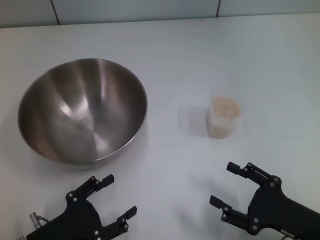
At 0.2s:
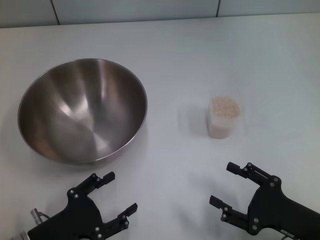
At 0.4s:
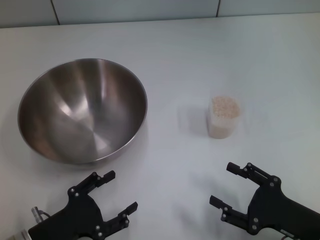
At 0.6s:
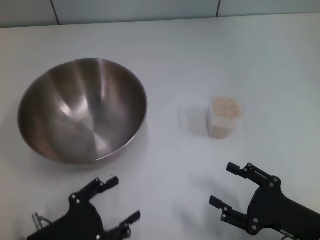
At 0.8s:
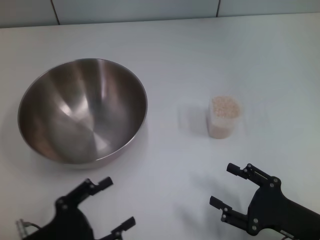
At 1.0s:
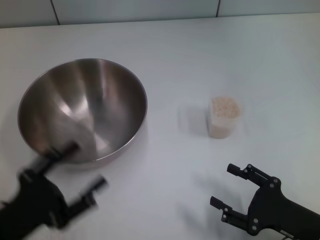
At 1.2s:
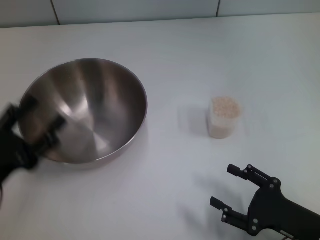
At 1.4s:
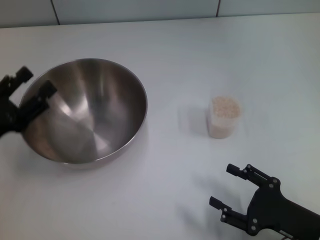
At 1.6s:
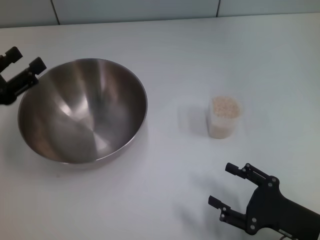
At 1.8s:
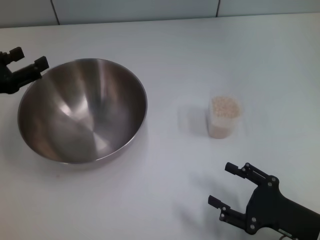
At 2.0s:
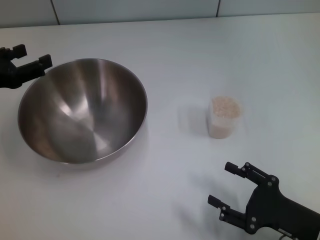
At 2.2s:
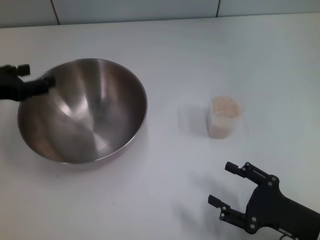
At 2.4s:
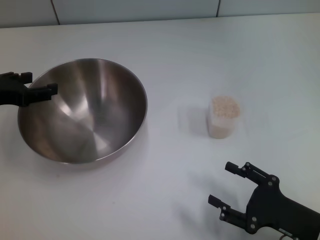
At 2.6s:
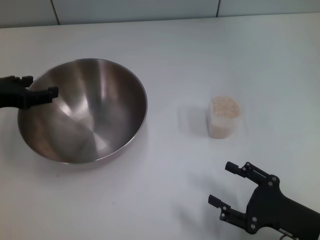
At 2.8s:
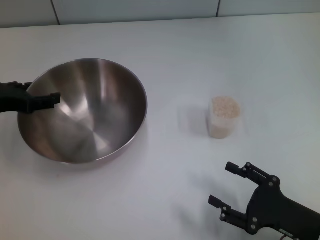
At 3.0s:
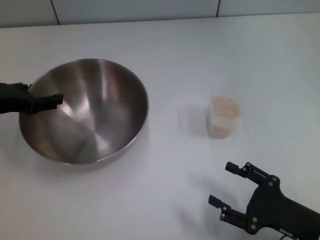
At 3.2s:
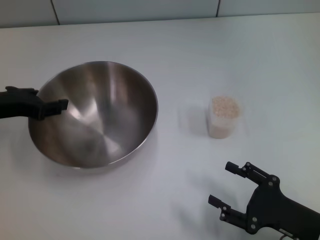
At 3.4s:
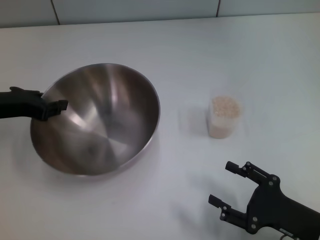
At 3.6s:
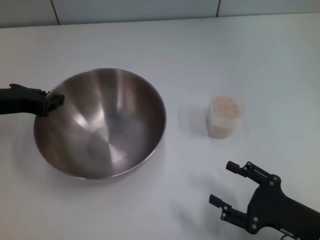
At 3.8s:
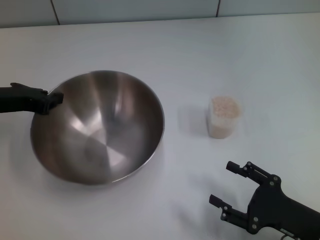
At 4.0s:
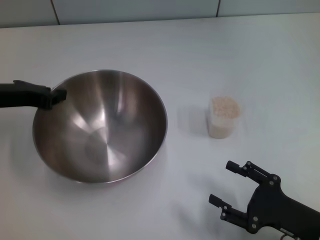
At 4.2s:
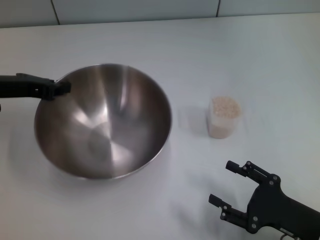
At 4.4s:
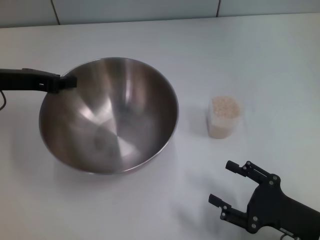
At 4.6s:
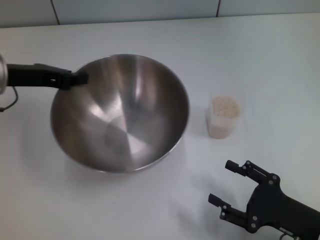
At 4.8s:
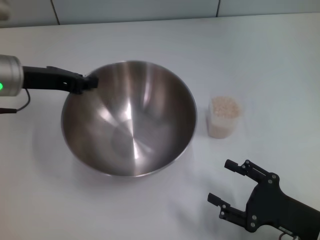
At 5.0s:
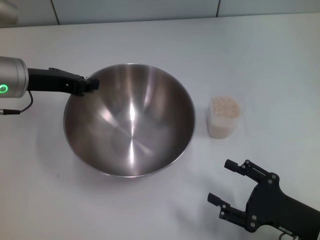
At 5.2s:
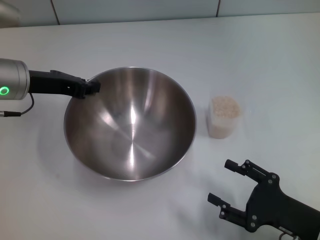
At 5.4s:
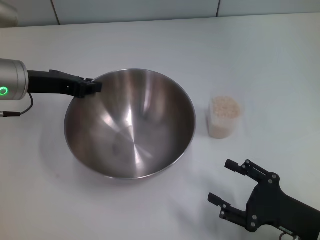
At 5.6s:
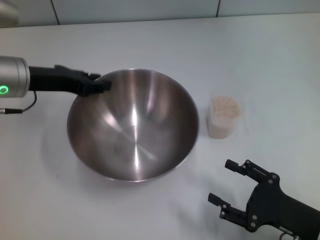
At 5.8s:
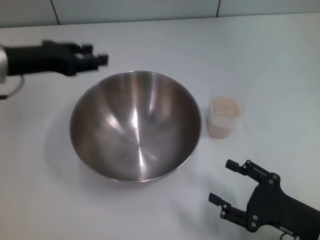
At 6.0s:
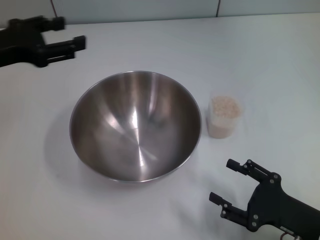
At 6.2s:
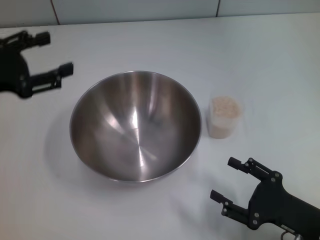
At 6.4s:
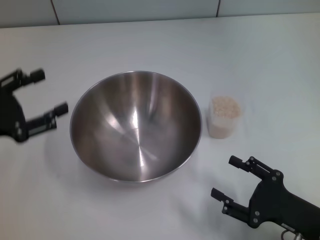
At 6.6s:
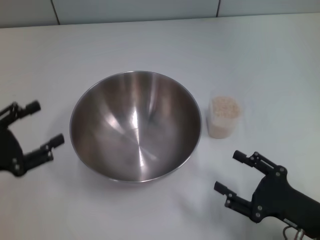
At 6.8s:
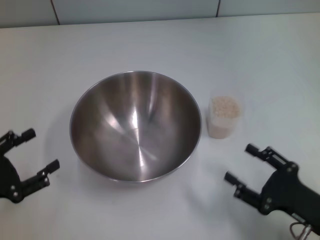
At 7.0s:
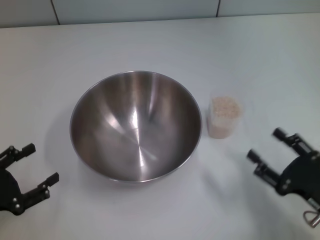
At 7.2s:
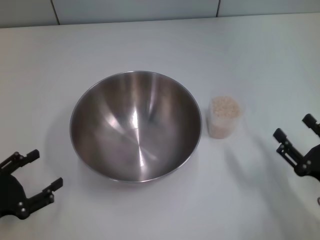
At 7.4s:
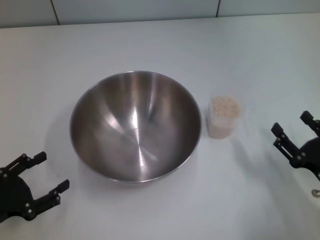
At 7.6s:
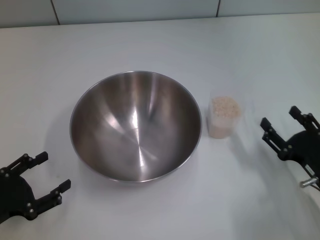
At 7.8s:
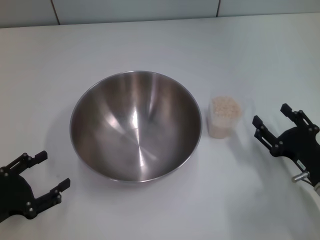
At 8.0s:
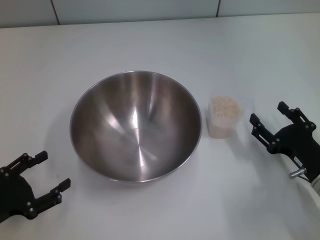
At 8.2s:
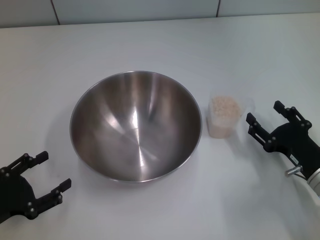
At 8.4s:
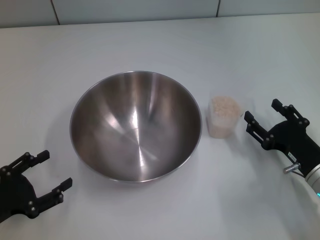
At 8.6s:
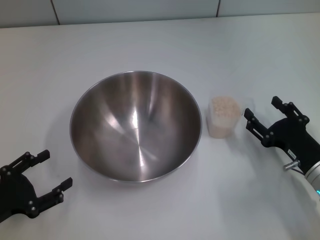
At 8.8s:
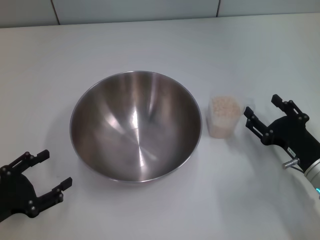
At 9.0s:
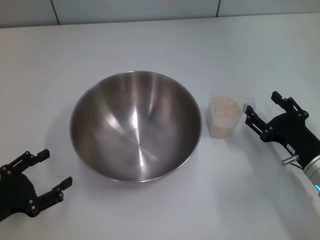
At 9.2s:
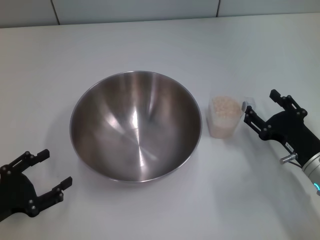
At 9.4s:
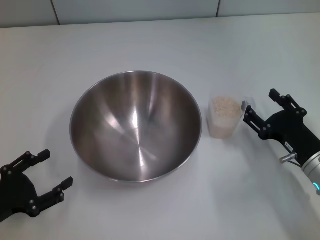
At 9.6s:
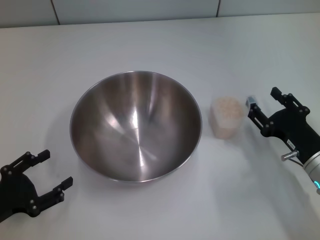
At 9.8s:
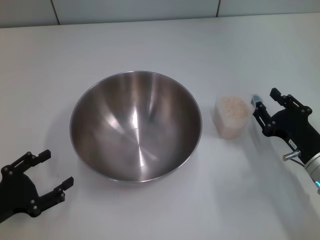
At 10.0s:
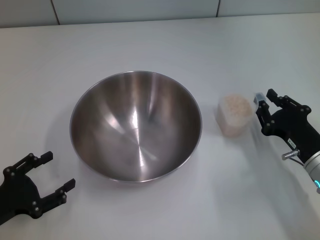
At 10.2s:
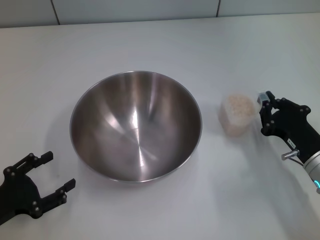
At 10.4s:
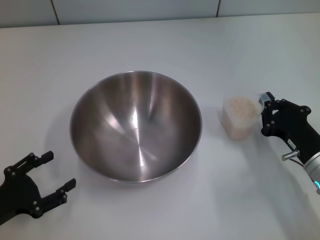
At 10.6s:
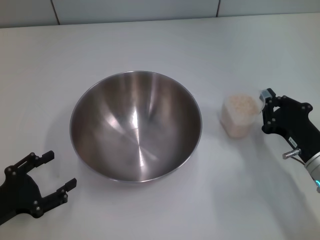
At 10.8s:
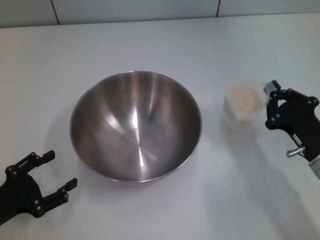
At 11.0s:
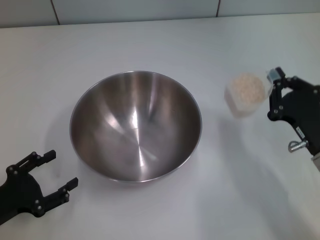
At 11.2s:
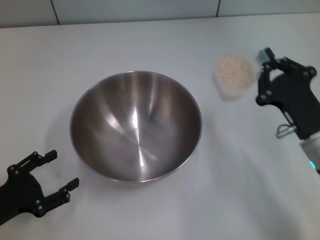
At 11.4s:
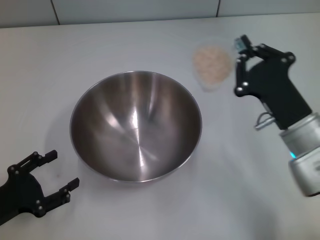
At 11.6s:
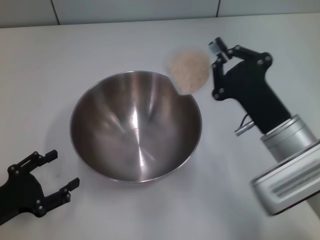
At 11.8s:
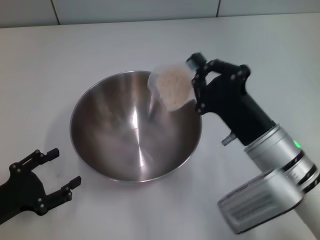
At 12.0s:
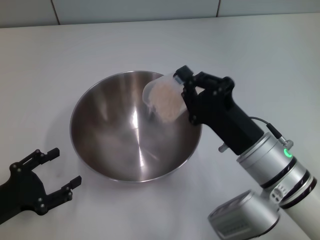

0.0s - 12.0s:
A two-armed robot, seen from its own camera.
Task of the whole recording: Place the bowl in the middle of the table with one hand and pour the rice from the grain cup into it with the other hand.
Step, 0.0s - 4.0s: Pick up the bowl with the left gripper.
Step, 4.2s - 6.6s: Place the bowl in the center of view with the left gripper.
Step, 6.8s - 10.8s: Pick up the cup with rice in it with the right gripper.
0.0s - 1.6s: The left gripper shifts about 20 cm forward, upward and to the left.
1.6s - 3.0s: The left gripper heads forward, covering some 5 cm.
3.0s - 4.4s: The left gripper changes place by about 5 cm, and closes its fingers.
4.4s - 6.0s: The left gripper opens its fingers.
6.0s - 7.6s: The left gripper shifts approximately 25 cm downward and backward, while the right gripper changes place by some 5 cm.
7.6s - 9.0s: The grippers move only a little.
9.0s - 10.4s: The right gripper closes.
10.4s - 12.0s: The right gripper goes some 10 cm to the left and upward.

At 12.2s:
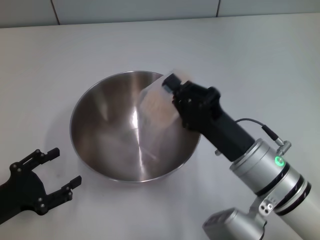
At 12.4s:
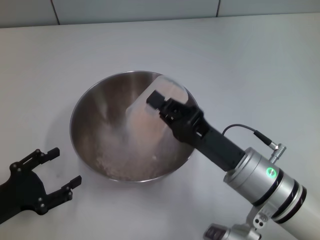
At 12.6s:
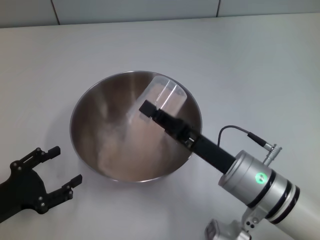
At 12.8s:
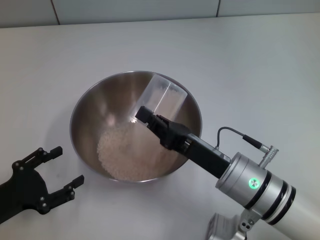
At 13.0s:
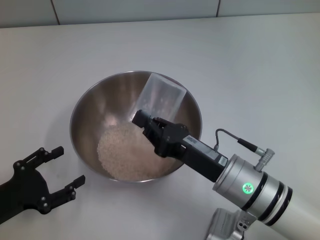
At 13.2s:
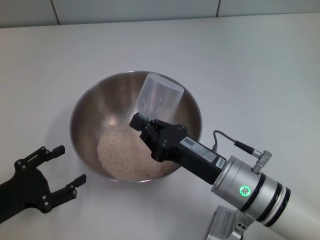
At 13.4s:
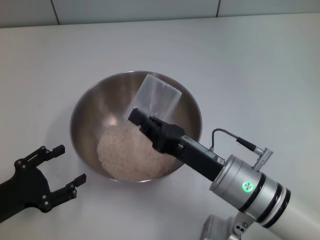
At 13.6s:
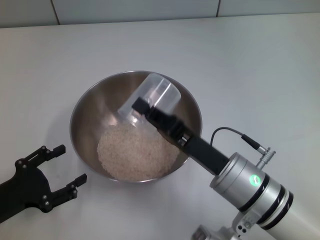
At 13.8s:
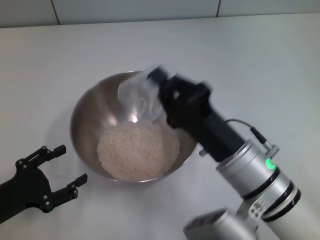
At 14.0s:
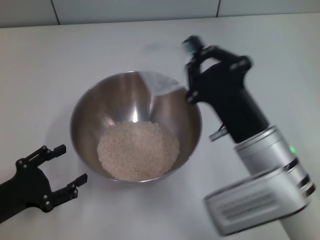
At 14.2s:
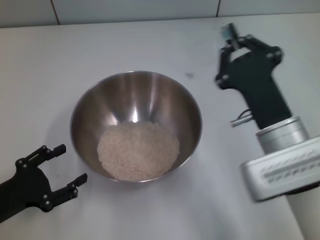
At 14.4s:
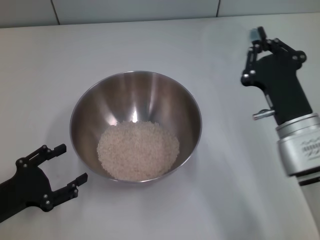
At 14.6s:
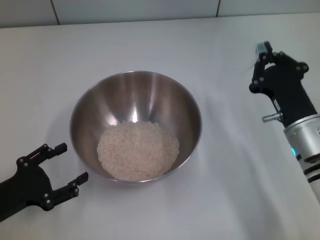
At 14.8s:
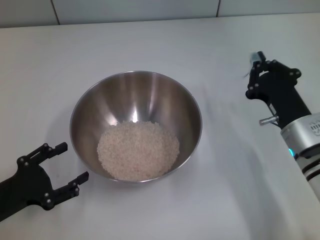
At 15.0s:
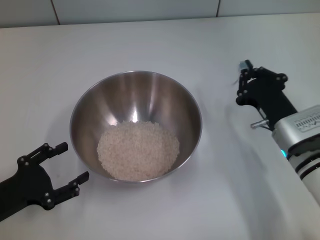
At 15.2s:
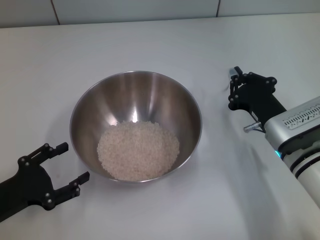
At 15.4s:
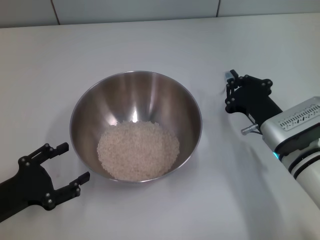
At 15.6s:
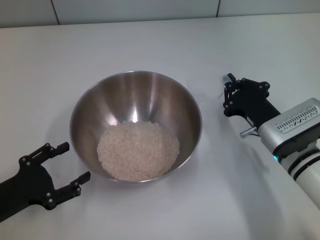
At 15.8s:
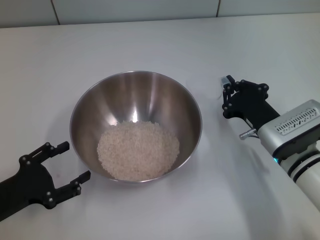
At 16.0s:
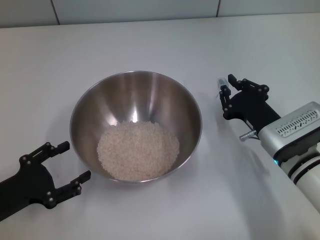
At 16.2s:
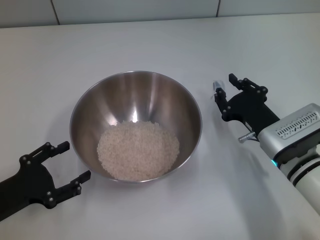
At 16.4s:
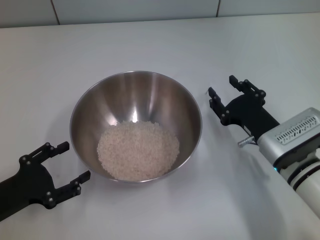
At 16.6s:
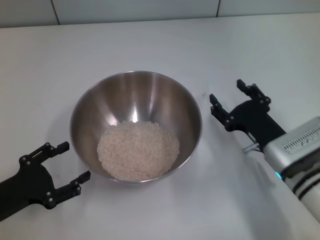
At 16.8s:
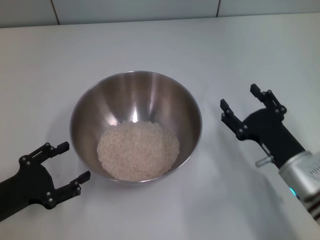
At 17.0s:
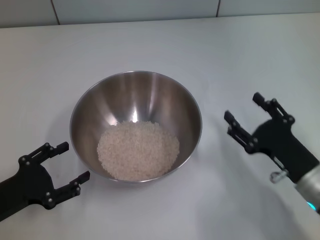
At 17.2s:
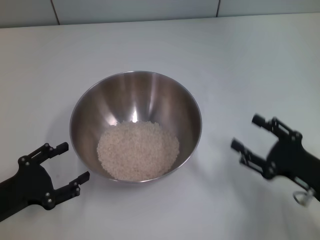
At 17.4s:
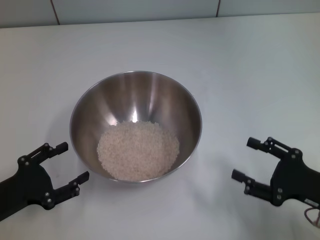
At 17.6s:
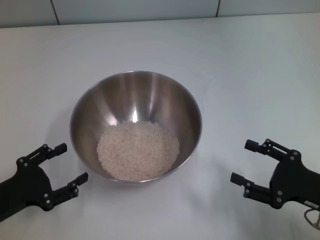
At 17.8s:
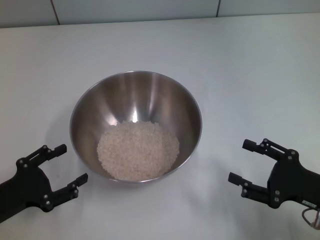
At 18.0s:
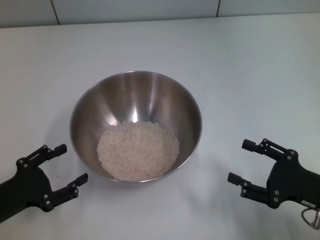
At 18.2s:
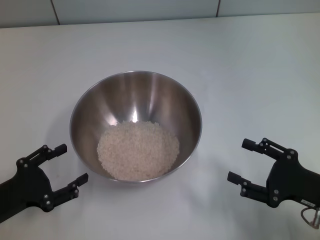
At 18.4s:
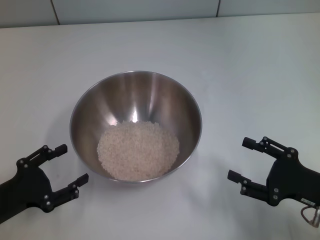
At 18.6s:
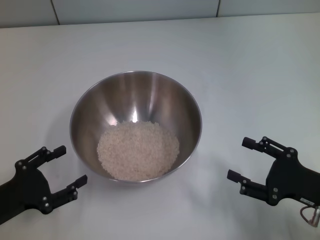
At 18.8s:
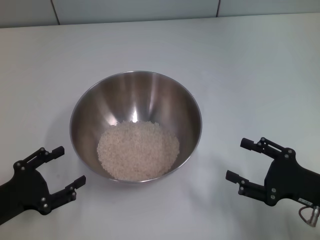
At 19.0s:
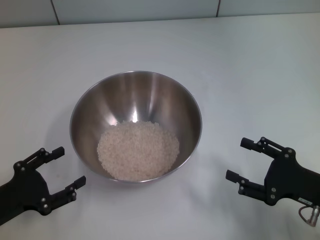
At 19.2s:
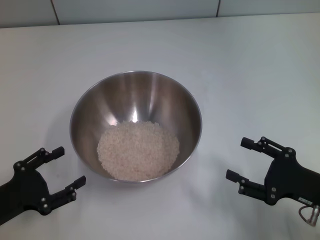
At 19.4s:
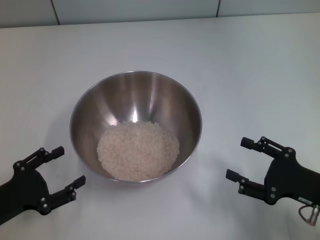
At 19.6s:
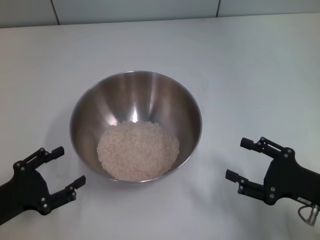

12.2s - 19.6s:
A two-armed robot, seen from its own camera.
Task of the whole recording: Place the bowl in the middle of the table with one hand and pour the rice from the grain cup into it with the other hand.
Step, 12.2s - 14.2s: Pour the rice from the cup into the bowl with the right gripper.
Step, 14.4s - 17.0s: Place the cup on the table with the right gripper.
13.6s - 15.2s: The right gripper heads to the right and forward, covering some 10 cm.
15.2s - 16.6s: The right gripper opens its fingers.
16.6s - 18.2s: The right gripper shifts about 10 cm to the right and backward.
18.2s - 19.6s: Both grippers stay put.

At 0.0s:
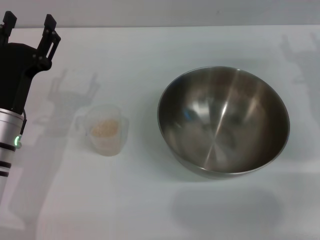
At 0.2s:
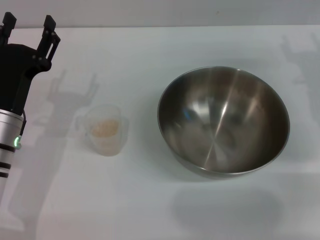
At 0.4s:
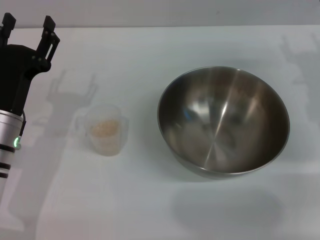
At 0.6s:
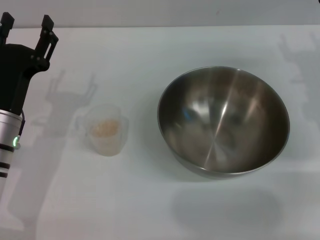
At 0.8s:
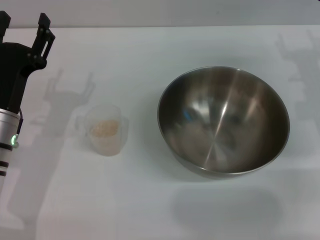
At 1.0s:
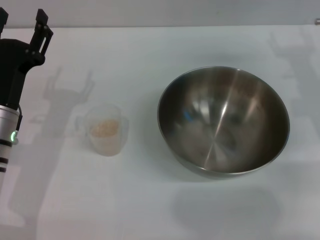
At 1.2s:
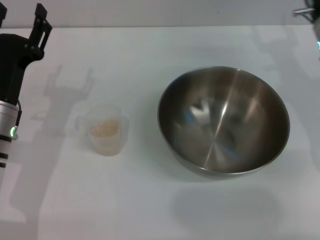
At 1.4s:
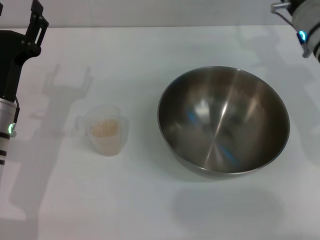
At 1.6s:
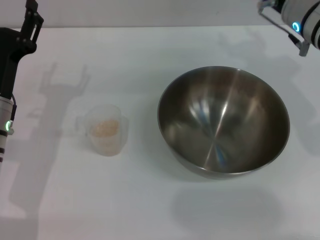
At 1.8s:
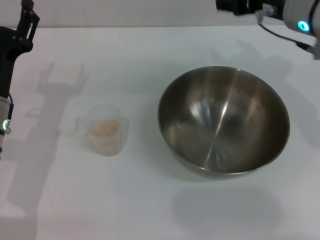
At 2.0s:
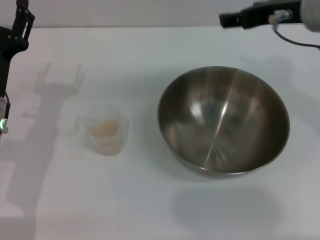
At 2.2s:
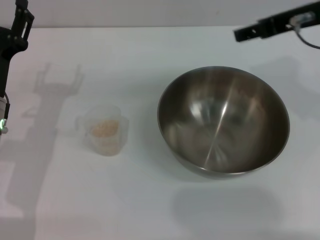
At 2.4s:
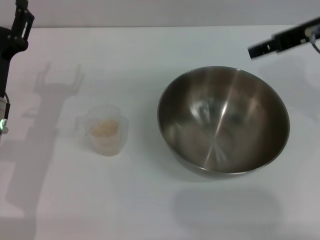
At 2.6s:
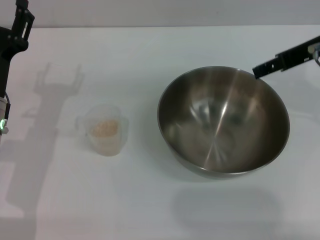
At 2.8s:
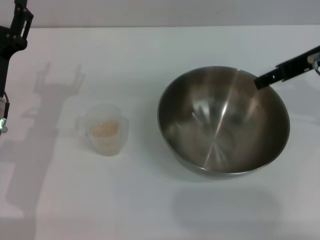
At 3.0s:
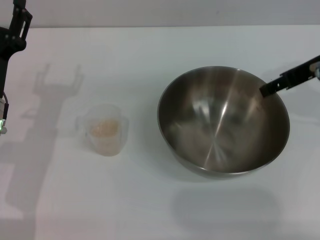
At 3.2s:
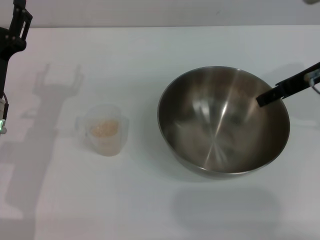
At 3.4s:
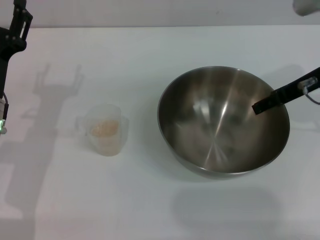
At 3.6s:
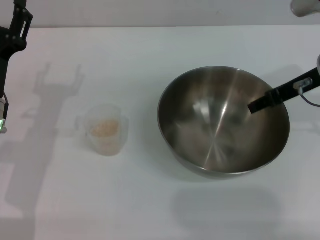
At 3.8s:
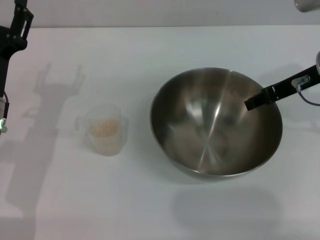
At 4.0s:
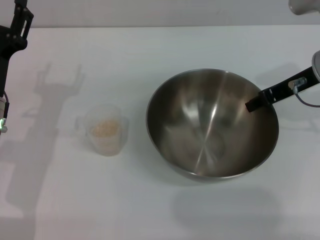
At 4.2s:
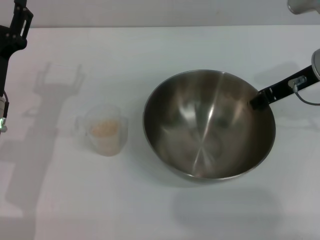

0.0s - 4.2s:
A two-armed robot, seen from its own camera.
Task of the whole recording: Place the bowl in the middle of the table with one hand and pour the rice from the grain cup into it with the other hand.
0.0s - 1.4s: The right gripper moves to the left, about 5 cm.
1.4s - 2.8s: The right gripper heads upward and backward, covering some 10 cm.
2.8s - 4.2s: The right gripper heads downward, covering about 5 cm, and closes.
